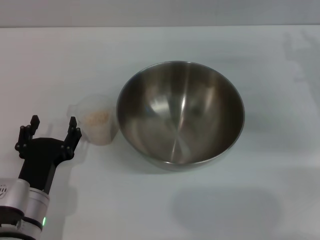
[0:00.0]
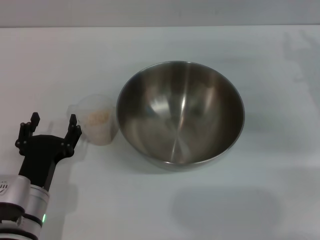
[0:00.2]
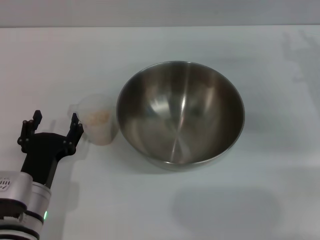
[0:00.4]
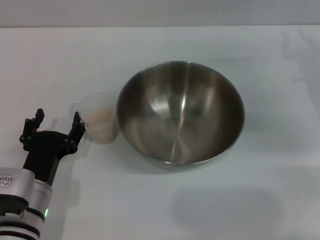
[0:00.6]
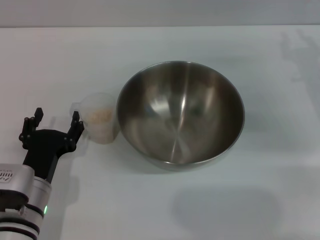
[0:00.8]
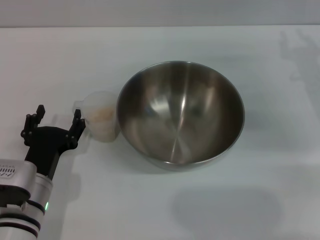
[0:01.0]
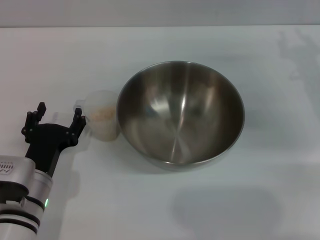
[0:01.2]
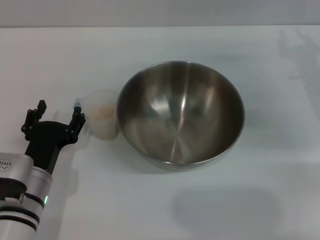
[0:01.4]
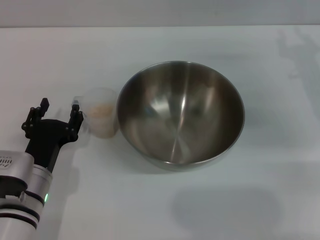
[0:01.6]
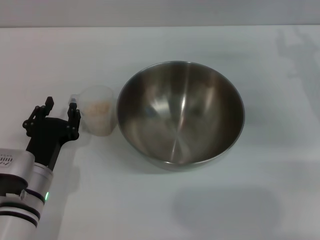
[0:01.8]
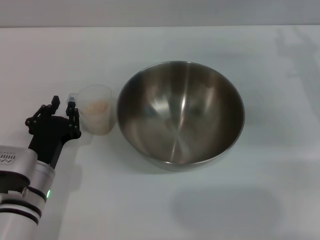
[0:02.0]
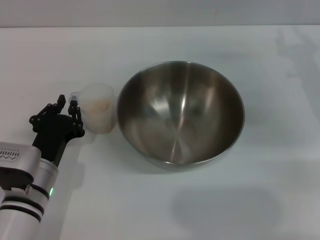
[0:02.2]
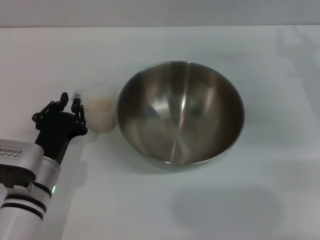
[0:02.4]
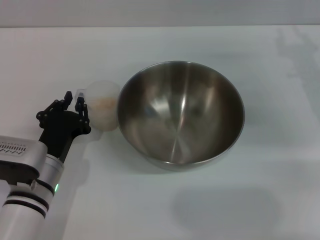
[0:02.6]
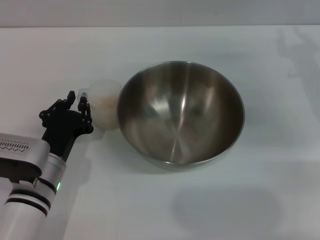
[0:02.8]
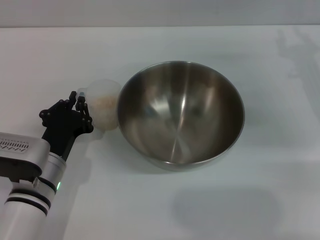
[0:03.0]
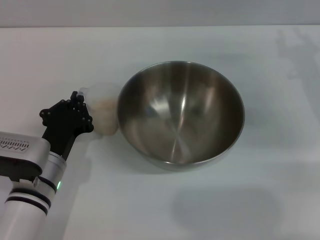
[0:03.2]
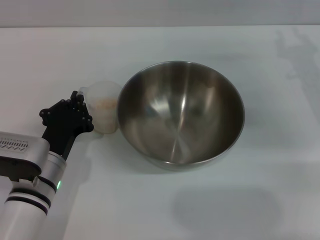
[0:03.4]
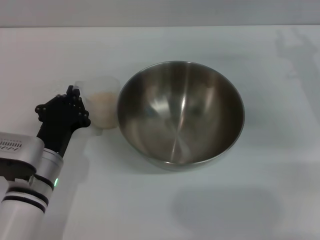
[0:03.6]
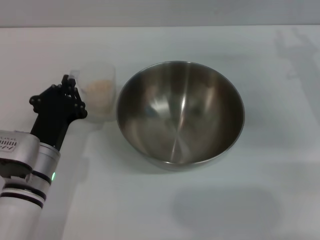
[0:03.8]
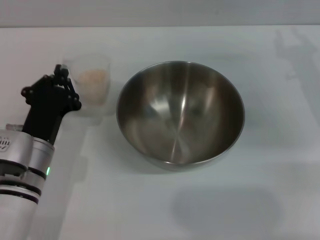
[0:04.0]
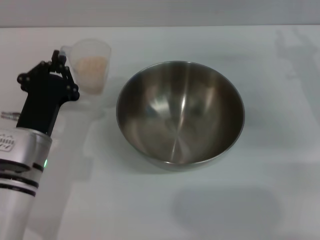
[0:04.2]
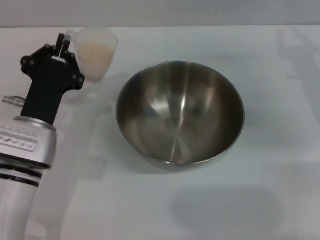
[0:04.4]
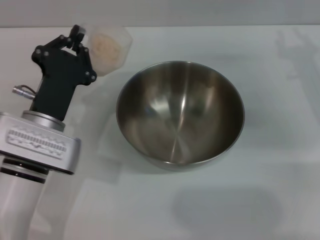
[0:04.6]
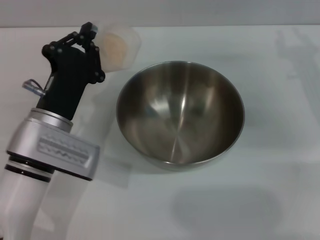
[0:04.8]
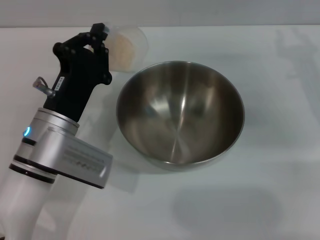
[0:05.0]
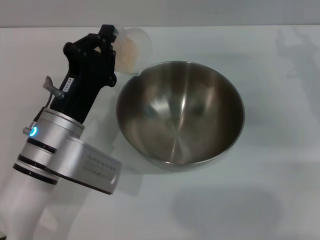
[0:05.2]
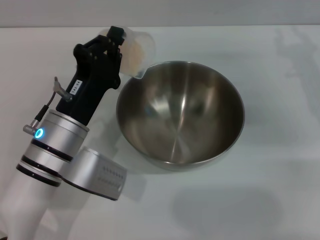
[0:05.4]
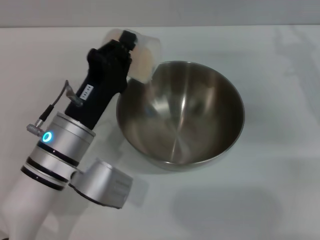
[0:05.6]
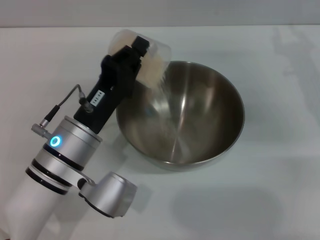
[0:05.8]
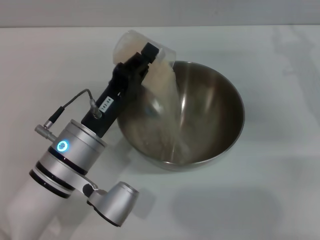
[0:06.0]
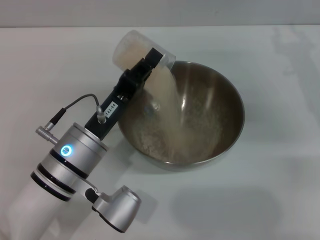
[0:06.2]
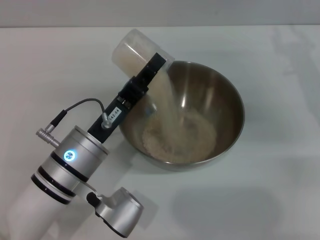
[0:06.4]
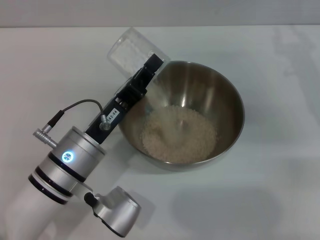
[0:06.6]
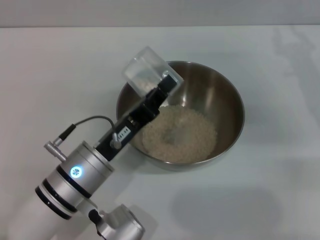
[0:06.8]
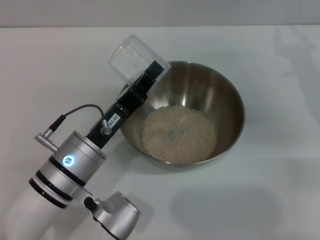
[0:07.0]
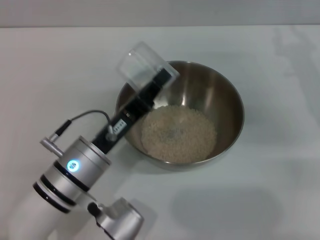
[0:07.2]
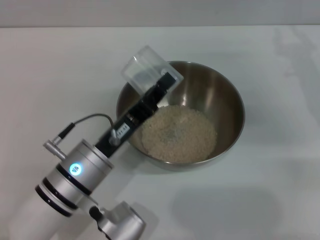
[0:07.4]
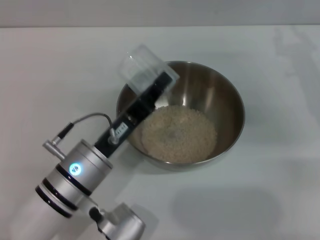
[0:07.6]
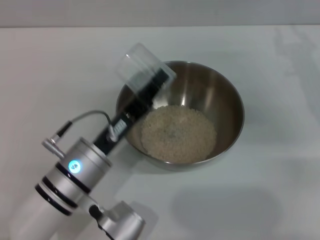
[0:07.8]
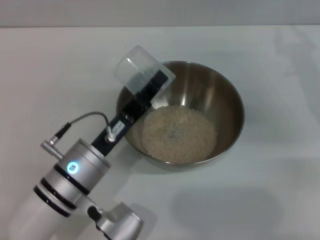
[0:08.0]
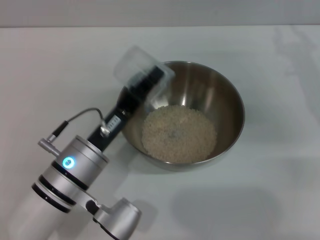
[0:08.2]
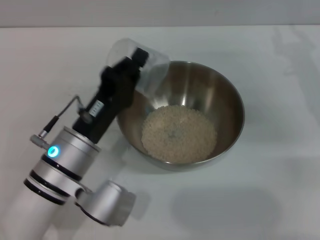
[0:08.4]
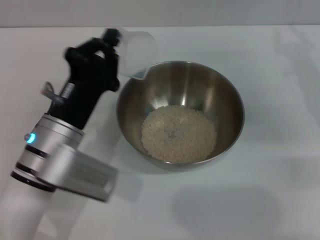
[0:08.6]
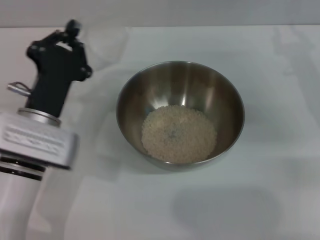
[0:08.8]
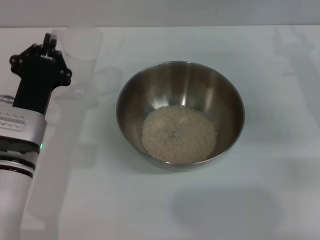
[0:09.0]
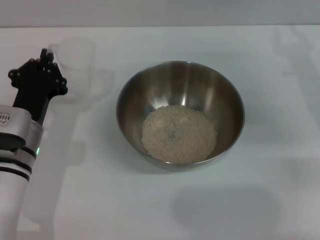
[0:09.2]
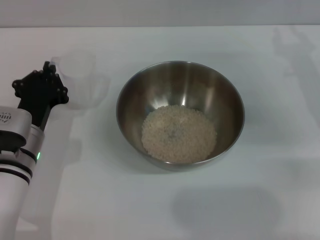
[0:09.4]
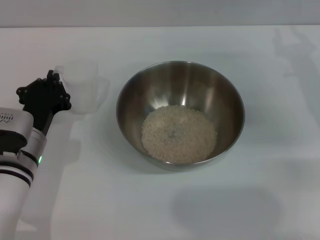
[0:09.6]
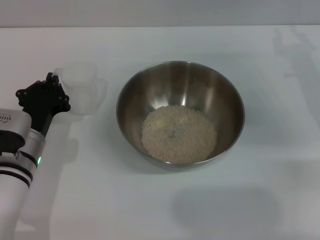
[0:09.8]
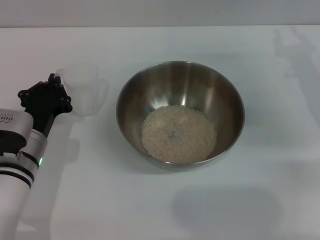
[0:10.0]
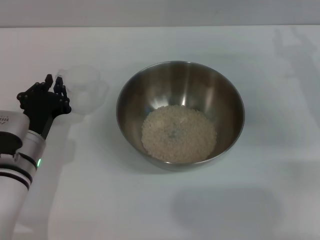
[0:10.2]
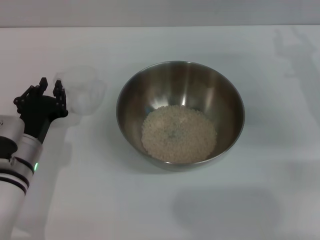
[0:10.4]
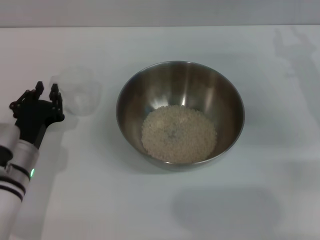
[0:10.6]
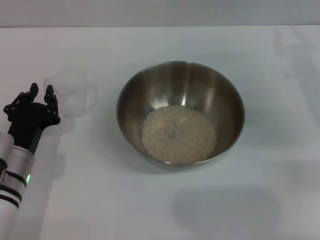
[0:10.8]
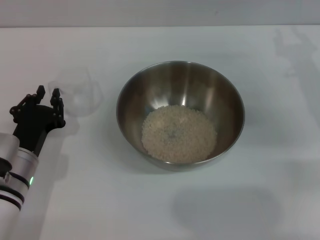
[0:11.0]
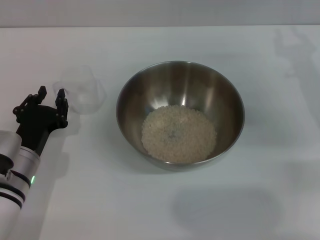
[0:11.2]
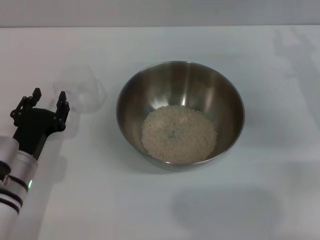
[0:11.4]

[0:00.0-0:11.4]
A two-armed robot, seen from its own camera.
Task of the whole recording: Place the bowl in the middle of the table with one hand and pour the rice from the grain cup into it with the other hand.
Step, 0:00.0 to 0:04.0: Pick up the cup with rice in it with the left gripper.
Step, 0:04.2 to 0:07.4: Pour the rice from the cup into the bowl with the left gripper.
0:00.0 to 0:01.4: The grippers move only a little.
0:01.4 to 0:02.8: The left gripper closes its fingers.
0:02.8 to 0:04.2: The grippers stay close to where they were, moving slightly.
0:04.2 to 0:05.6: The left gripper changes place by roughly 5 cm.
0:08.6 to 0:10.0: The left gripper heads to the left and downward, covering some 10 cm.
0:10.0 to 0:11.4: The grippers stay close to where they were, moving slightly.

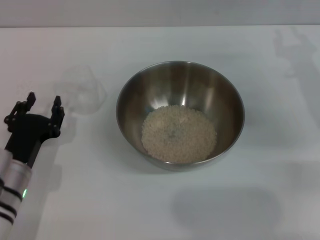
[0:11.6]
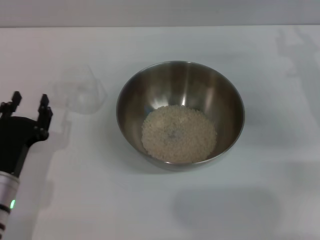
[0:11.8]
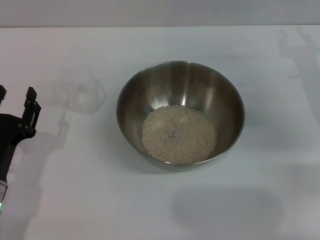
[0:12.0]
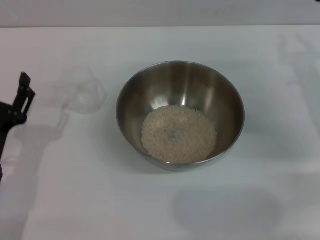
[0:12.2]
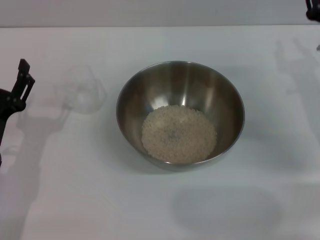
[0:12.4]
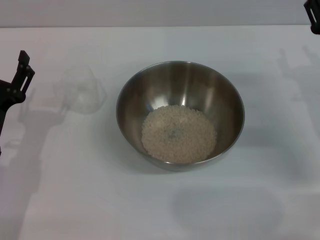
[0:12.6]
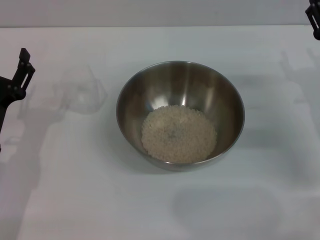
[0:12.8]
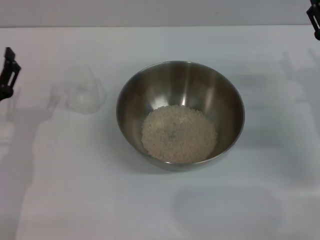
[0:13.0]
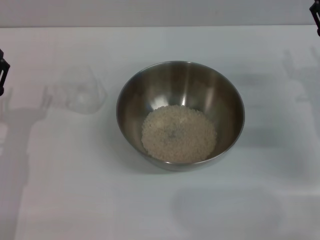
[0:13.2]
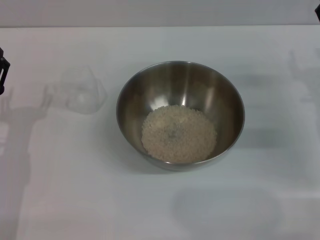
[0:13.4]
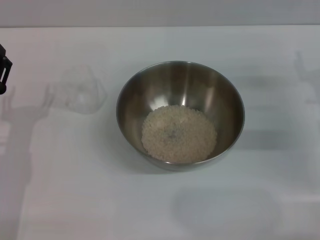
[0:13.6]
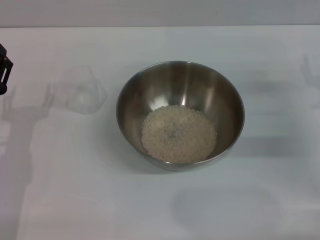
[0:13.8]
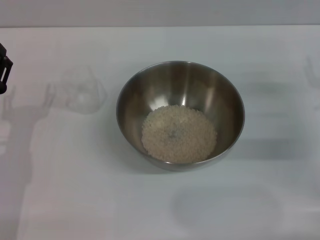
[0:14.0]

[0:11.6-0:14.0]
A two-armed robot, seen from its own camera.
Task of the whole recording: Place the bowl in the middle of the table with one hand and pour the rice from the grain cup into it with the other hand.
0:11.6 to 0:12.8: The right gripper changes place by approximately 5 cm. Meanwhile the left gripper opens its fingers.
0:12.8 to 0:14.0: The grippers stay close to where they were, moving slightly.
